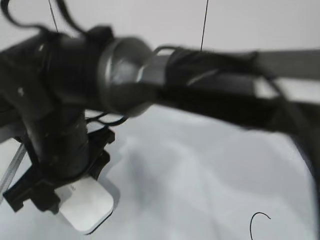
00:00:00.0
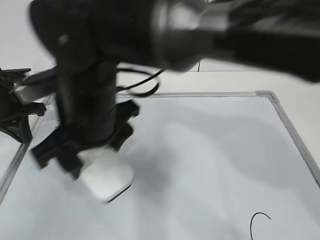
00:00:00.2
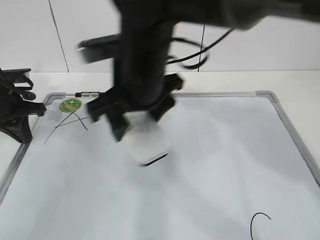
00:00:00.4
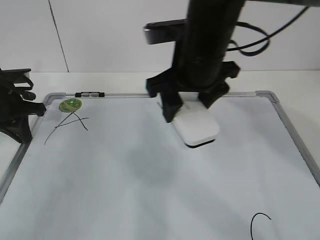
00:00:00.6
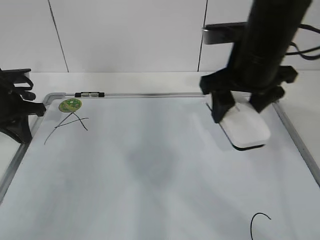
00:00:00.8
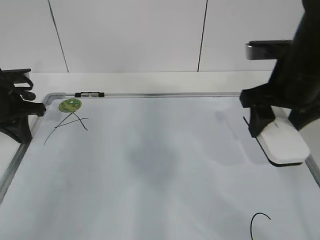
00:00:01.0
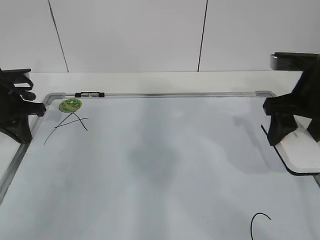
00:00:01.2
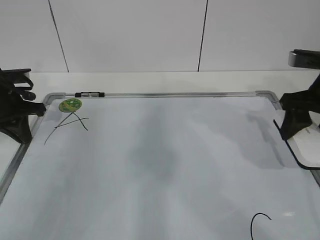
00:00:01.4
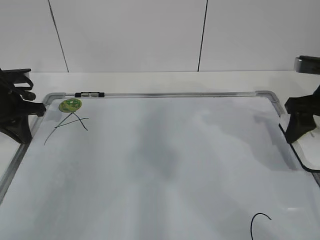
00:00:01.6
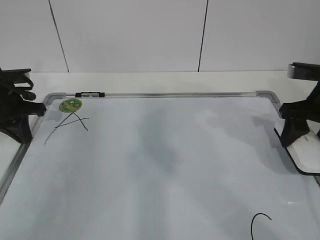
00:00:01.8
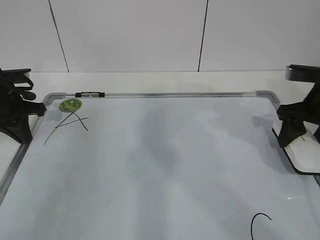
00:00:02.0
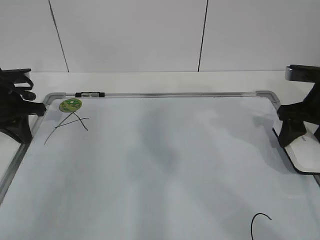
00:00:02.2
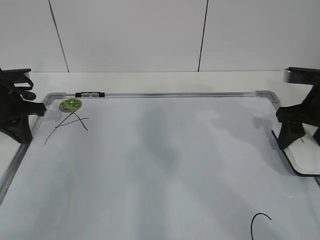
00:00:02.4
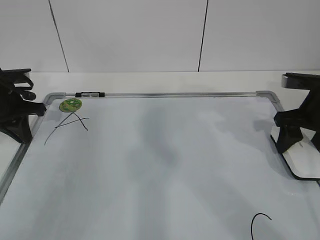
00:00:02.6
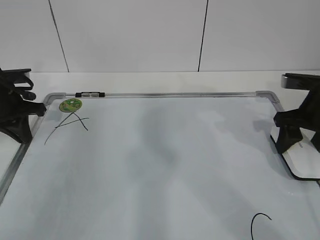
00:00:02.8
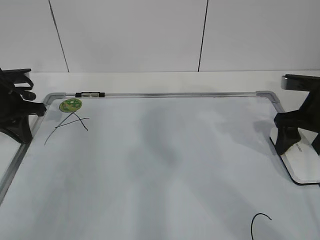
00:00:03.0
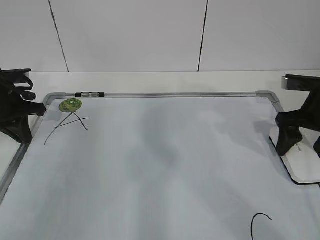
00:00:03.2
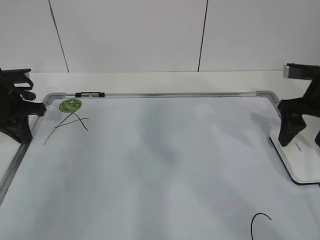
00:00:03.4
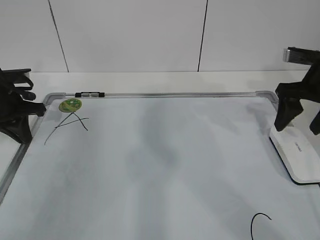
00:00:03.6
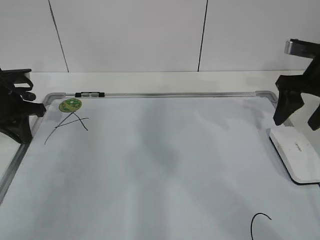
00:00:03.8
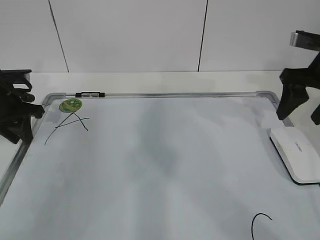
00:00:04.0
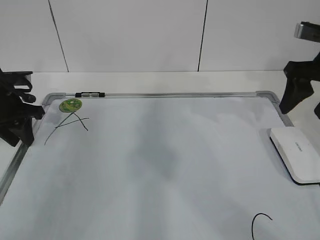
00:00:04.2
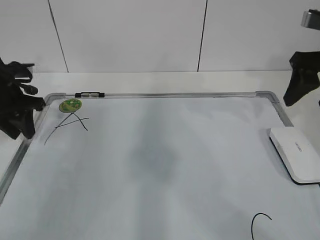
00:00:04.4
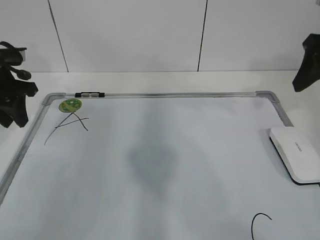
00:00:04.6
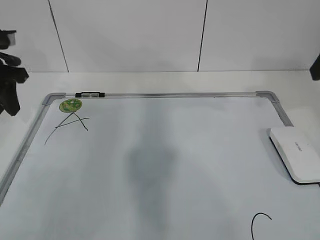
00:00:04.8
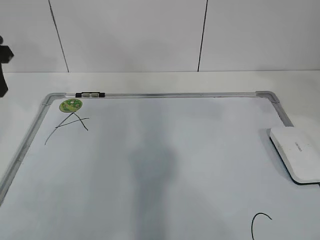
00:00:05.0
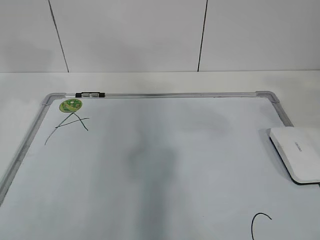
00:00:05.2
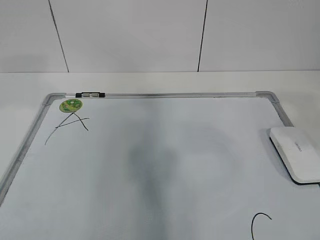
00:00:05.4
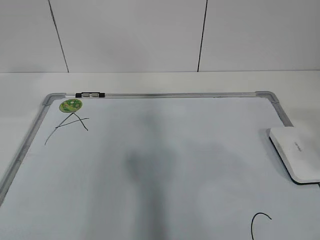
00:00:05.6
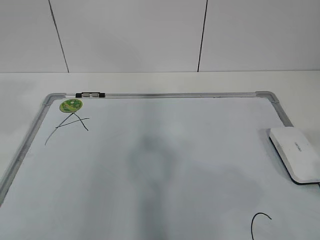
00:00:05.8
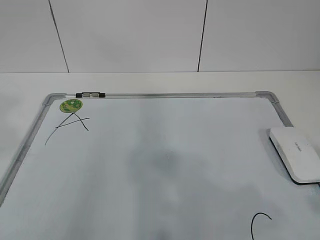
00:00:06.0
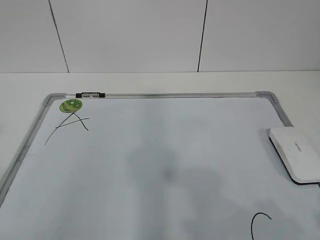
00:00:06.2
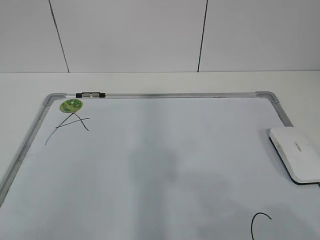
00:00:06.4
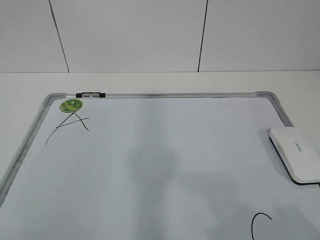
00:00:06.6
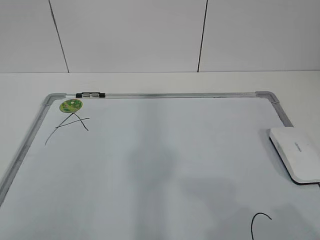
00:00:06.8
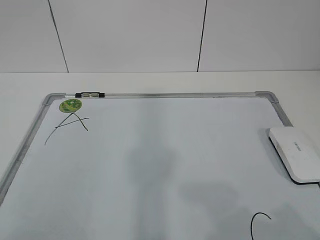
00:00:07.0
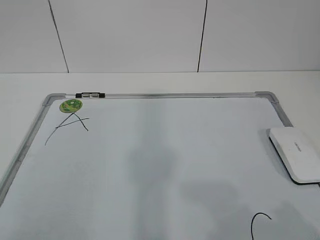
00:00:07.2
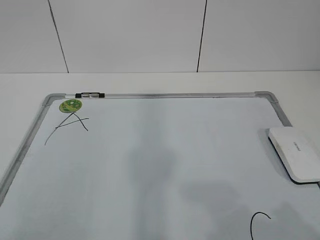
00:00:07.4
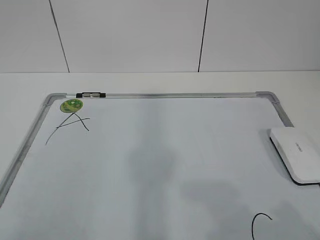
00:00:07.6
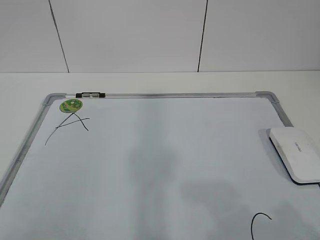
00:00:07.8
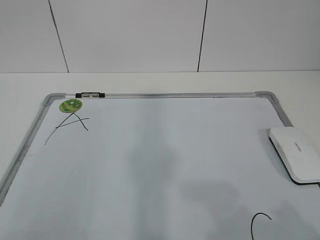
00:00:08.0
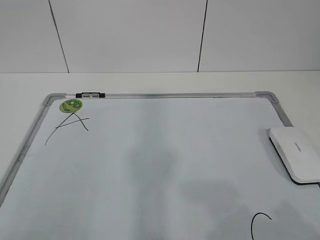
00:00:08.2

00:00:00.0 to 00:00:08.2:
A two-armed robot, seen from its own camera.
Task of the whole recording: pick up the eraser on the blackboard and erase the letter "B".
00:00:00.0 to 00:00:01.6: The right gripper moves to the right, about 40 cm.
00:00:01.6 to 00:00:03.2: The right gripper opens its fingers.
00:00:03.2 to 00:00:05.0: The right gripper goes some 20 cm upward and backward, and closes up; the left gripper is displaced upward by some 15 cm, and opens up.
00:00:05.0 to 00:00:06.6: The right gripper travels backward and downward by some 25 cm; the left gripper travels backward by roughly 40 cm.

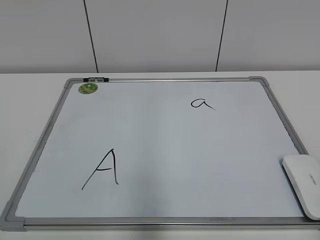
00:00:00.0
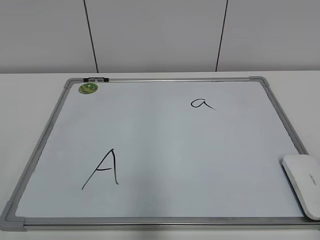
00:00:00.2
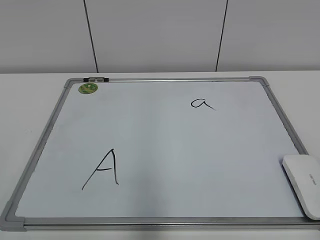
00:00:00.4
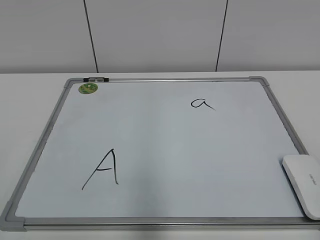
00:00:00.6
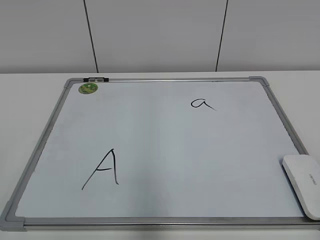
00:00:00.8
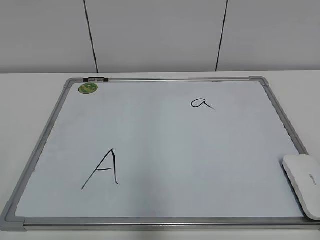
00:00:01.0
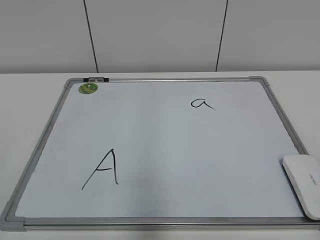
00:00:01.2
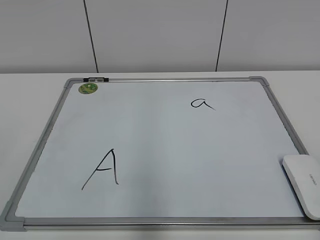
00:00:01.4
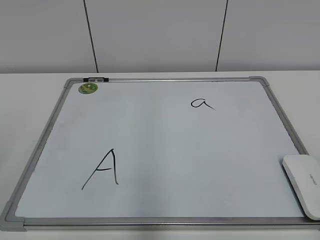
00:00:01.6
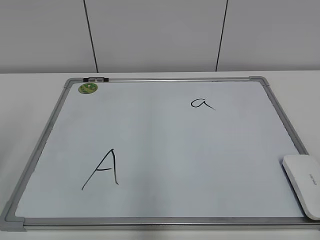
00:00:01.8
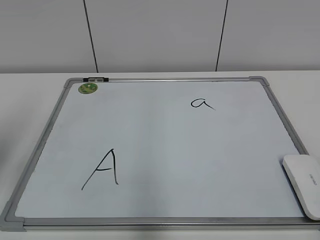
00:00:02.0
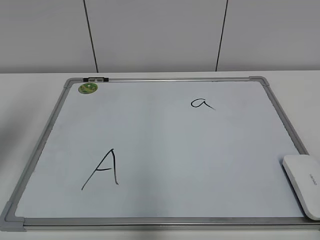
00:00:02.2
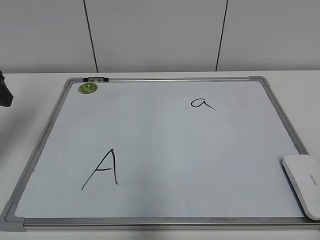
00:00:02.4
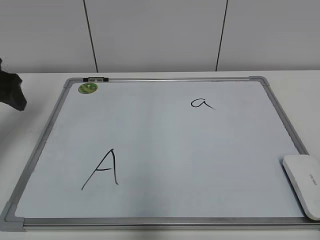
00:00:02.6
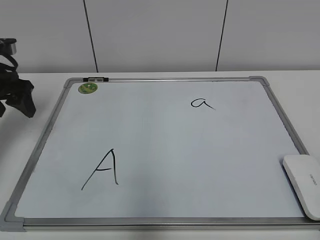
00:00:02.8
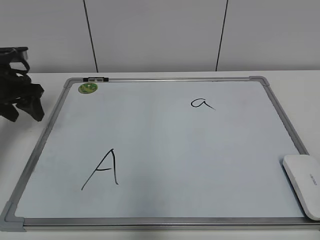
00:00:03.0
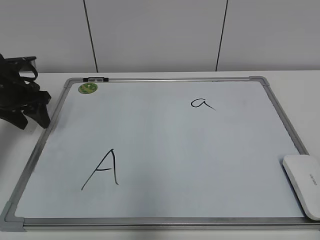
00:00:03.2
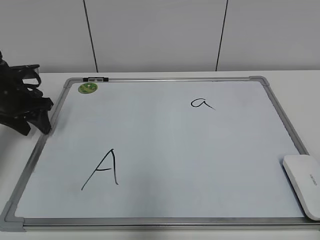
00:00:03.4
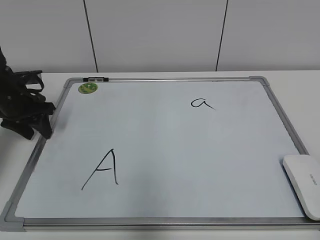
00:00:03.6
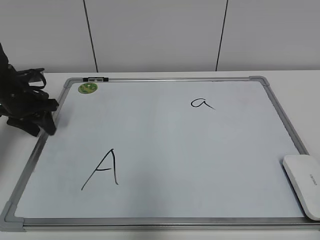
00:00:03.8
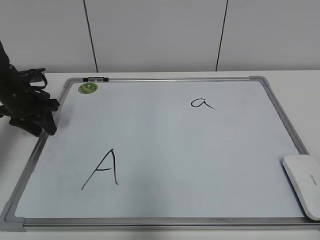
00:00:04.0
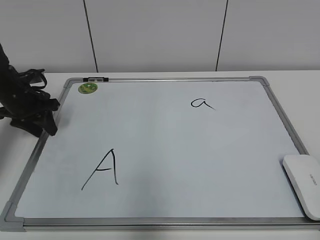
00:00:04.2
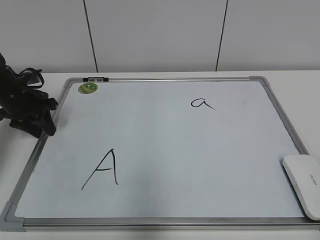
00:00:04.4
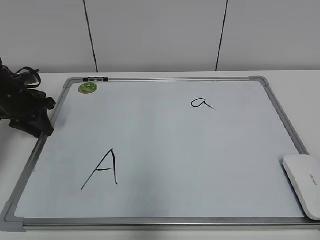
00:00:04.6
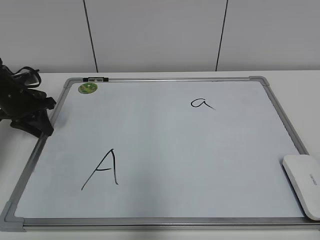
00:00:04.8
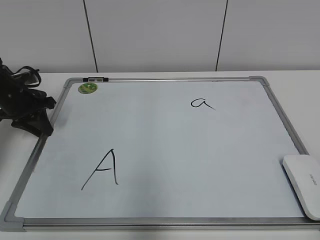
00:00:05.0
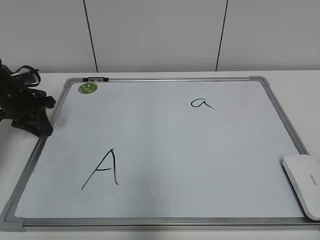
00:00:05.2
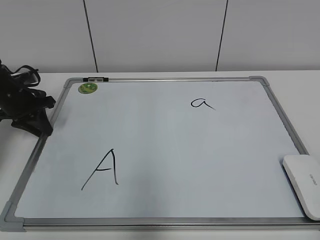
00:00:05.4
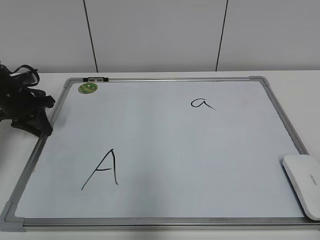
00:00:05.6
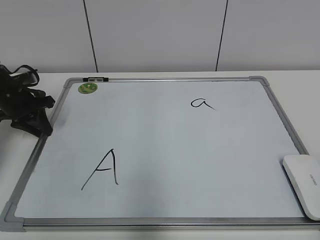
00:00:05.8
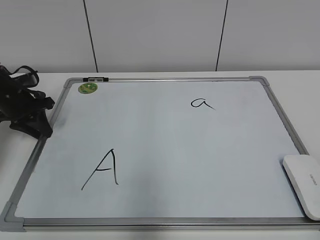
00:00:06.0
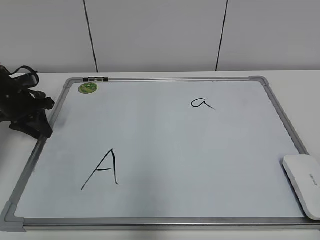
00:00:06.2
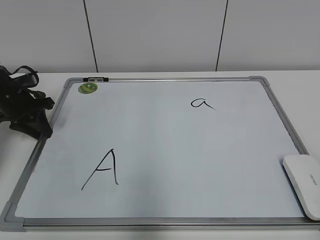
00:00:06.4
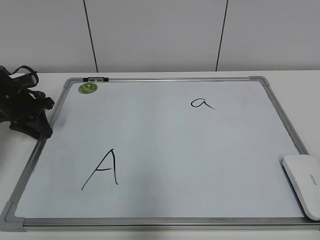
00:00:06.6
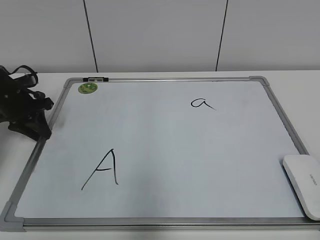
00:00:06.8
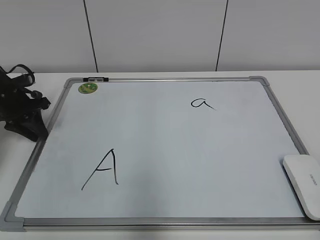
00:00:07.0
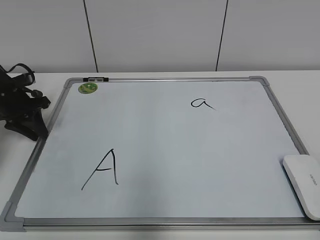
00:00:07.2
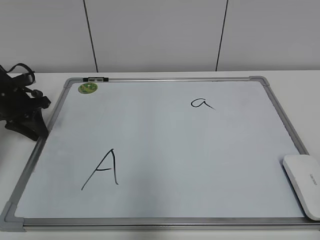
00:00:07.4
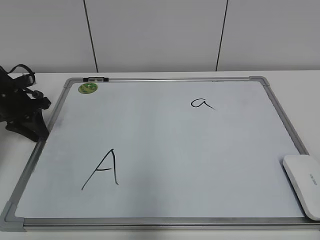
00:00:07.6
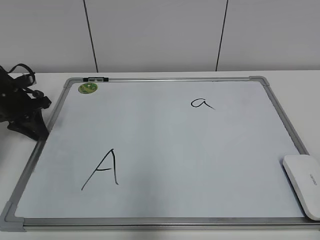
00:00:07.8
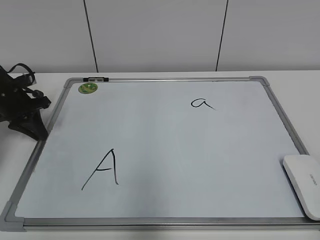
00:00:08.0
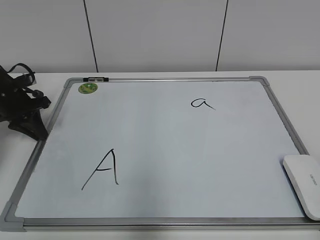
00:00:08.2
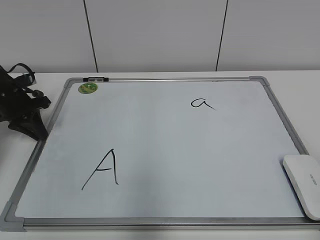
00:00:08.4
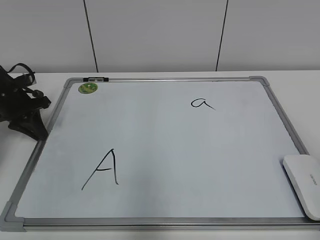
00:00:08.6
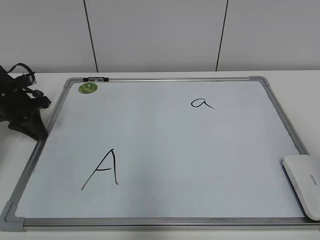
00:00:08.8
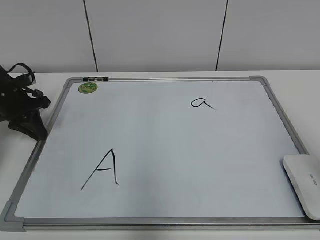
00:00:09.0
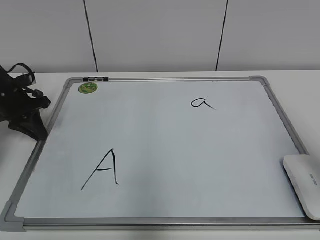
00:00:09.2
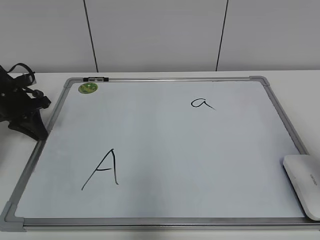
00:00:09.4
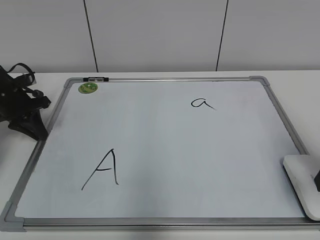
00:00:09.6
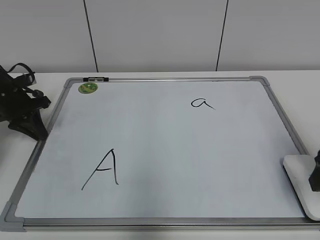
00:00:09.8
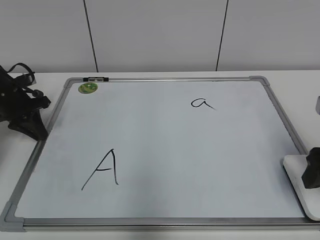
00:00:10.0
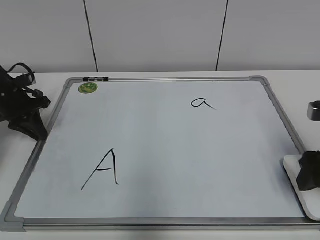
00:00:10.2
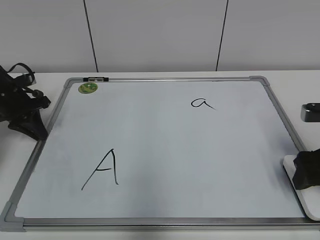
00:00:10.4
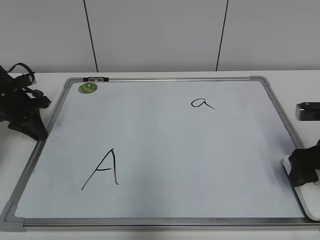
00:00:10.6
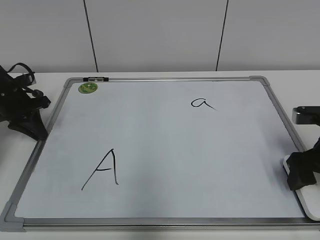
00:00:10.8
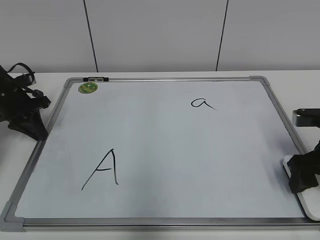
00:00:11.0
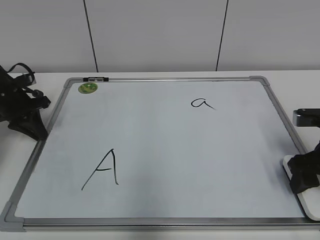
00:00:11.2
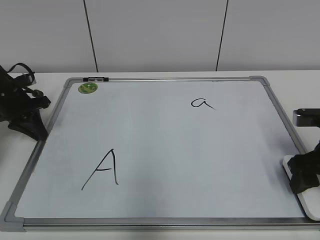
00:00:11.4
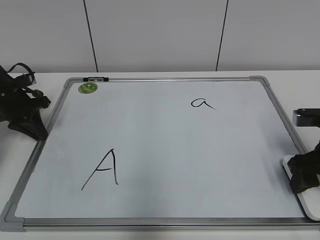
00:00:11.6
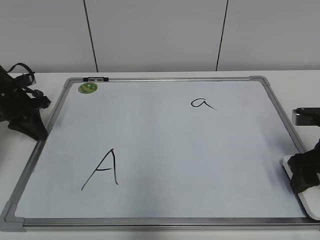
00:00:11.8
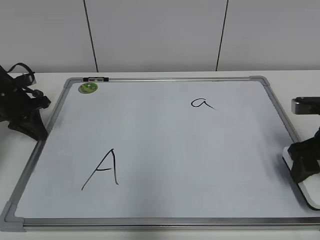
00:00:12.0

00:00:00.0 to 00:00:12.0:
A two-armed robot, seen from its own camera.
Task of the whole recording: pick up the eraser on the blackboard and erase the letter "a".
Step, 00:00:00.0 to 00:00:07.8: Hold the drawing board steady with your left hand.
Step, 00:00:08.0 to 00:00:11.6: Grab the eraser with your right hand.
00:00:01.6 to 00:00:03.0: The left gripper goes about 30 cm forward.
00:00:03.0 to 00:00:04.4: The left gripper shifts approximately 5 cm downward, and closes its fingers.
00:00:04.4 to 00:00:06.0: Both grippers stay about where they are.
00:00:06.0 to 00:00:07.6: The two grippers keep their place.
00:00:07.6 to 00:00:09.0: The right gripper goes roughly 15 cm forward.
00:00:09.0 to 00:00:10.4: The right gripper travels downward and forward by about 15 cm.
00:00:10.4 to 00:00:12.0: The right gripper closes up.

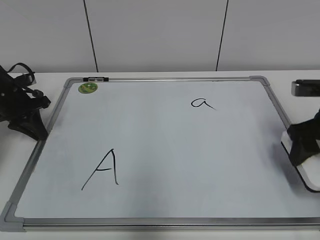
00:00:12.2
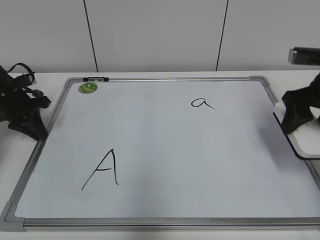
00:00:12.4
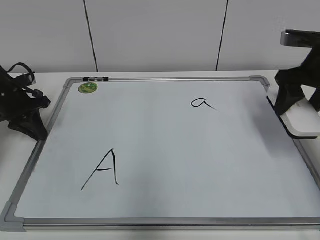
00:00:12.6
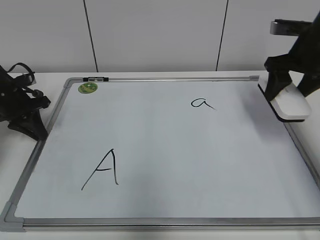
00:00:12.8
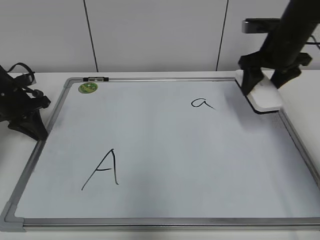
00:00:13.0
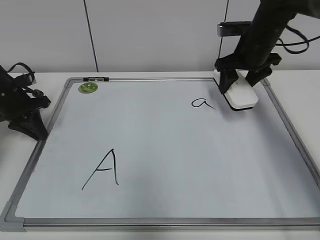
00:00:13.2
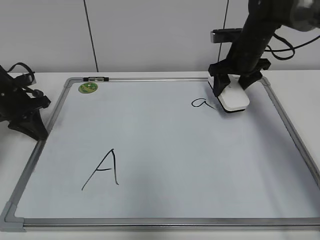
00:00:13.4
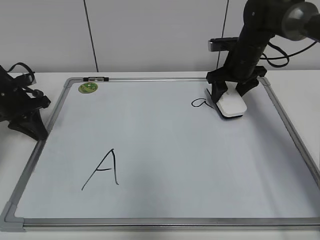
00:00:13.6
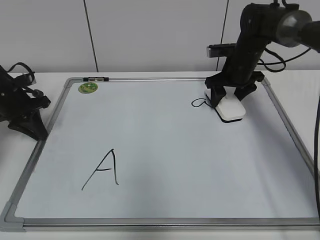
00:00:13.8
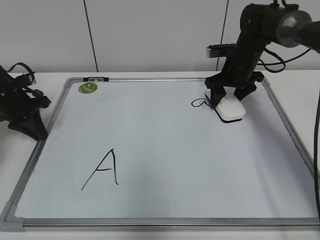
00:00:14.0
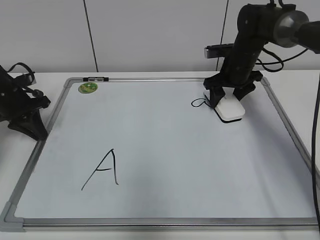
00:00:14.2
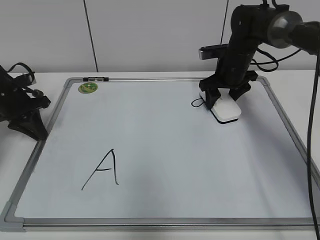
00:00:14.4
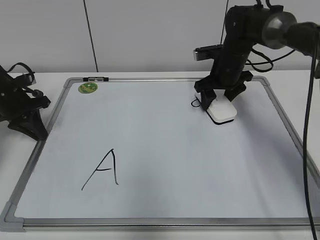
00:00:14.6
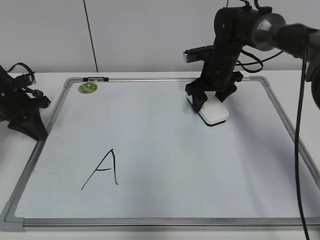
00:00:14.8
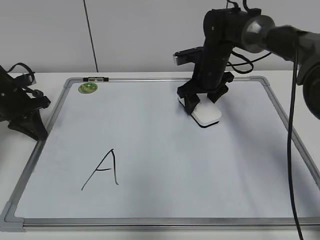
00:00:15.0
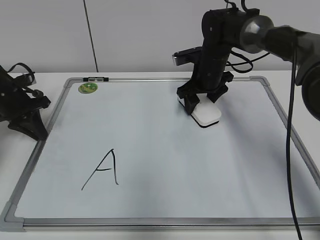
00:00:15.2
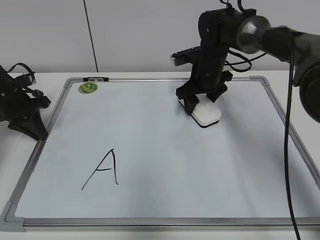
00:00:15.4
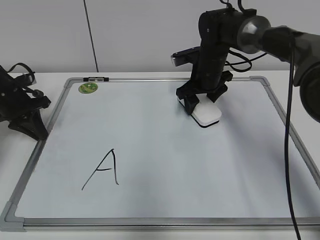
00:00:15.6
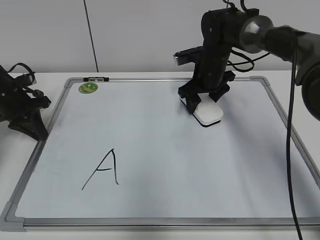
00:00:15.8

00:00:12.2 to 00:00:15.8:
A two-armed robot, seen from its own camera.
Task of the whole recording: pick up the eraser on the blackboard and erase the letter "a".
Step, 00:00:12.2 to 00:00:13.6: Erase the letter a with your right hand.
00:00:12.2 to 00:00:14.0: The right gripper travels forward and to the left by approximately 25 cm.
00:00:14.0 to 00:00:15.8: The right gripper shifts approximately 5 cm to the left.
